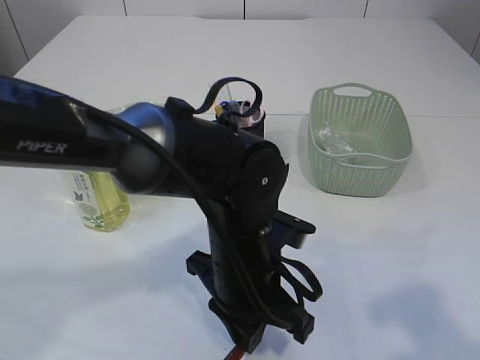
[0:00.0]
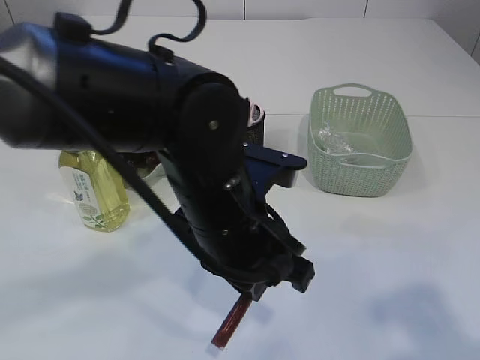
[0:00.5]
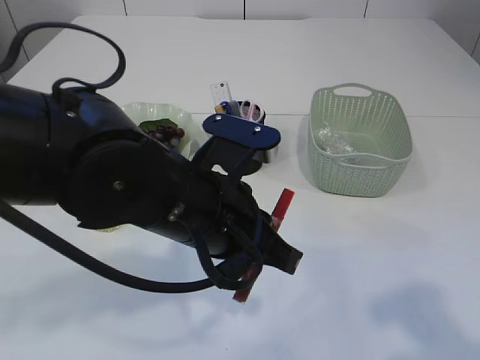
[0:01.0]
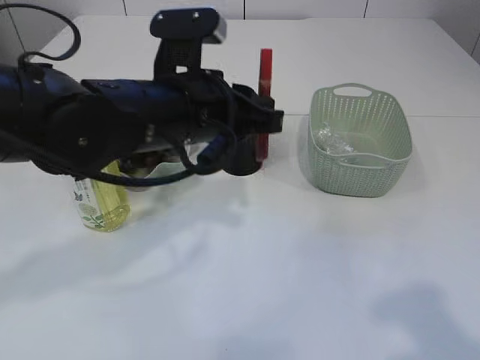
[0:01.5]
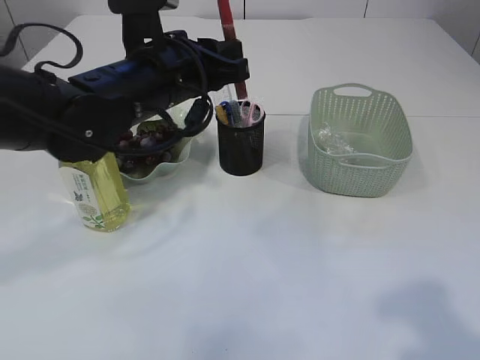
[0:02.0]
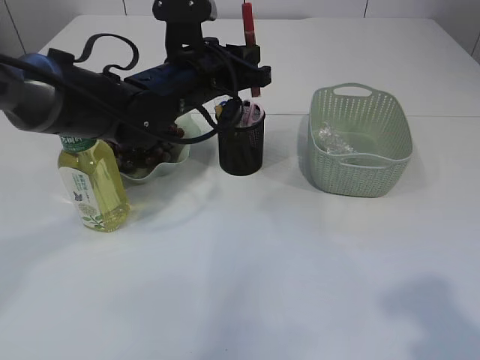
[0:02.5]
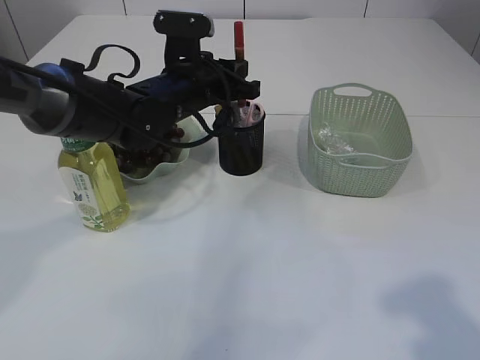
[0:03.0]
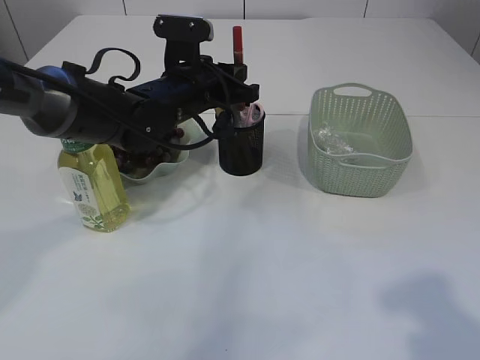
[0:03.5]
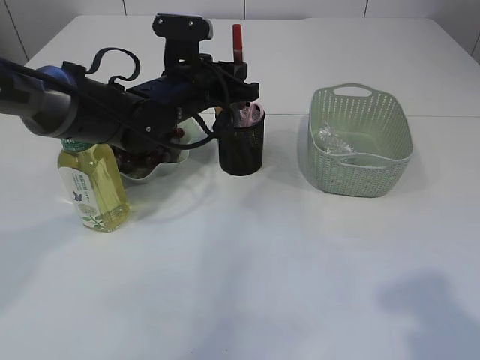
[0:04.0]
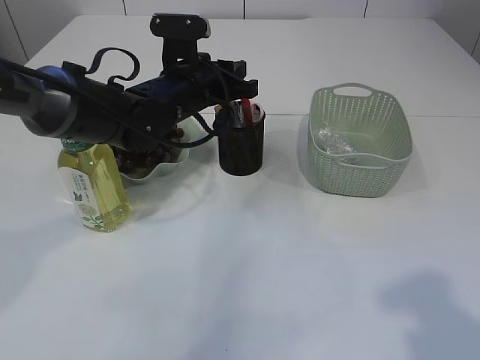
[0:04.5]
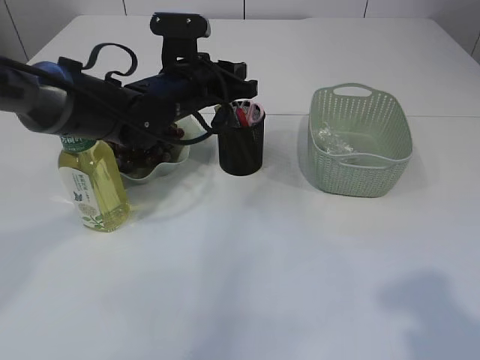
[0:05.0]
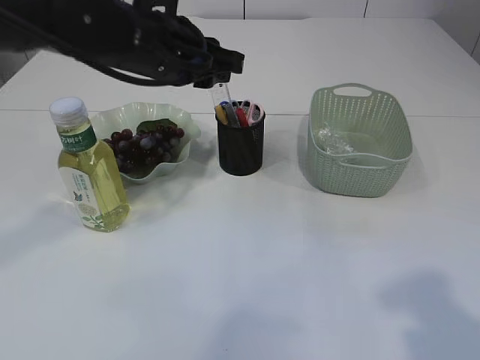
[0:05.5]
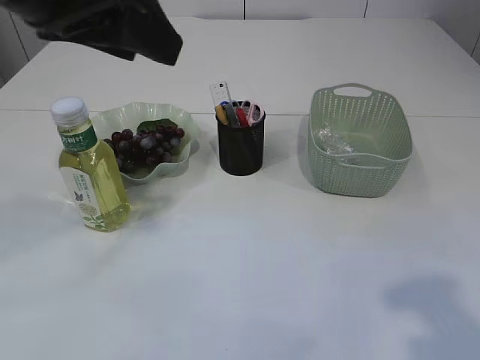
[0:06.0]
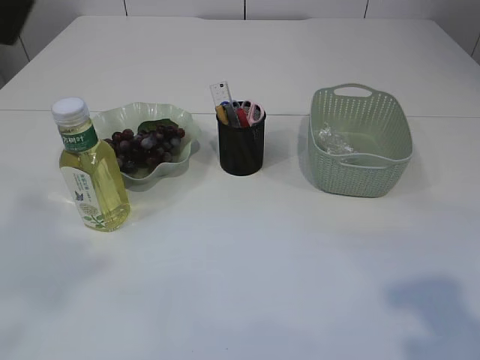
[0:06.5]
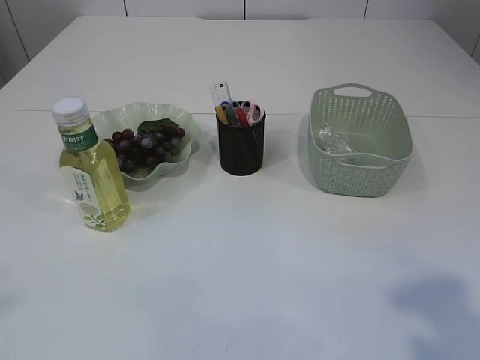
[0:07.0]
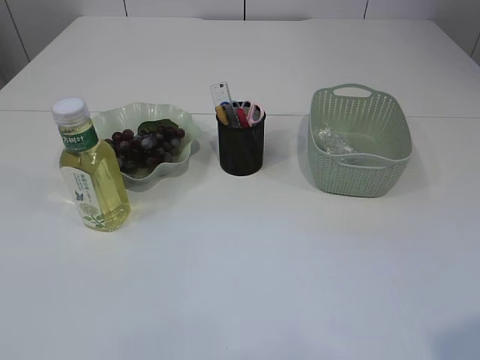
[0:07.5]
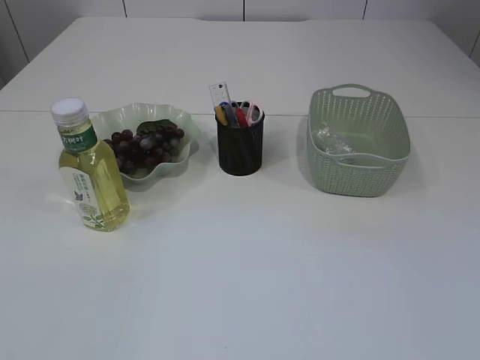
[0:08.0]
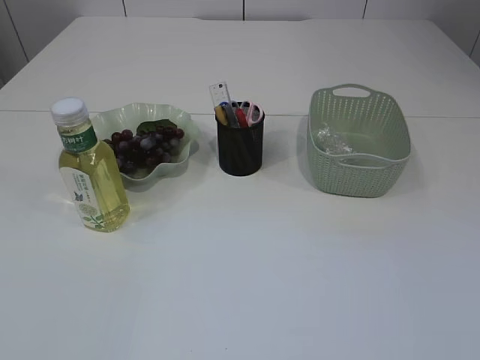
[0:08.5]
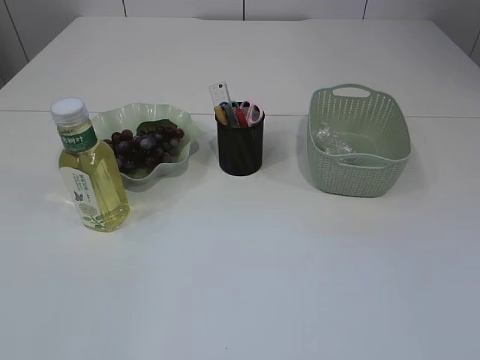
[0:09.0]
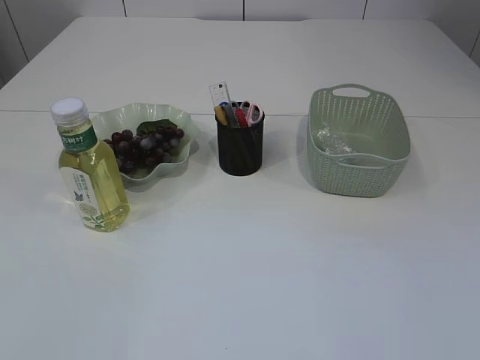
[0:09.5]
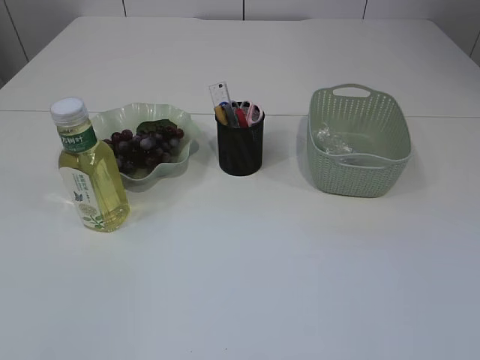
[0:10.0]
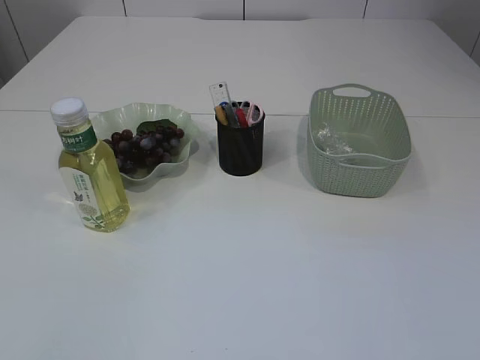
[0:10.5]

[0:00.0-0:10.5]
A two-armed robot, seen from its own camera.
Step, 0:00.5 to 0:05.5: place the red glue into the pen holder.
0:00.0 to 0:02.0: The left gripper is displaced upward, forward and to the left by roughly 20 cm.
0:02.0 to 0:04.0: The left gripper is displaced forward and downward by roughly 10 cm.
0:04.0 to 0:06.5: The left gripper heads backward and upward, covering about 40 cm, and opens up.
0:06.5 to 0:08.5: The right gripper goes some 10 cm backward, downward and to the right; the left gripper goes approximately 25 cm downward, to the left and backward.
